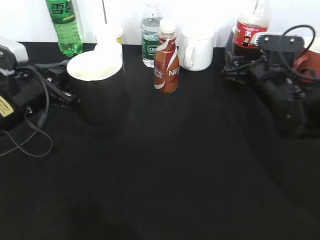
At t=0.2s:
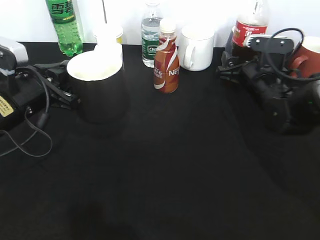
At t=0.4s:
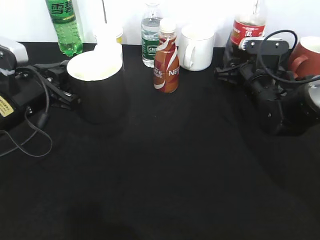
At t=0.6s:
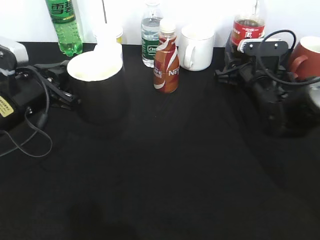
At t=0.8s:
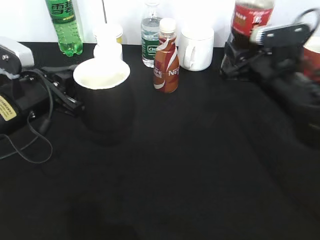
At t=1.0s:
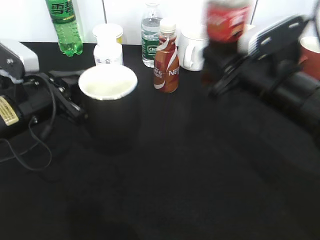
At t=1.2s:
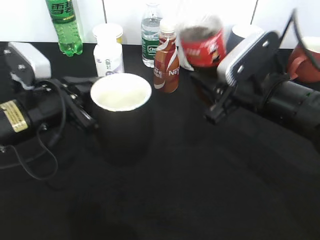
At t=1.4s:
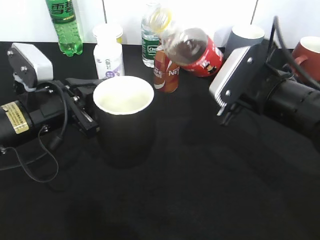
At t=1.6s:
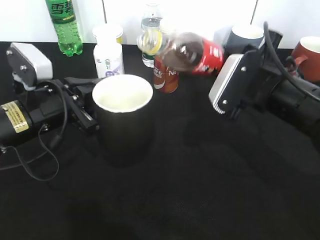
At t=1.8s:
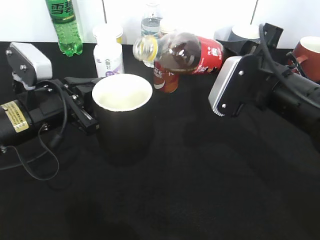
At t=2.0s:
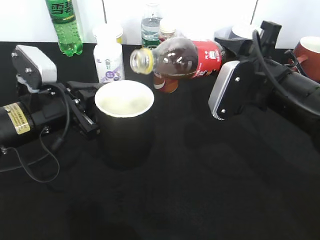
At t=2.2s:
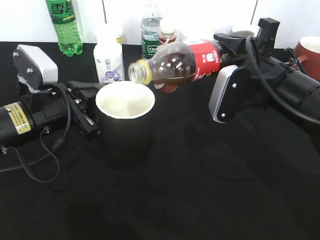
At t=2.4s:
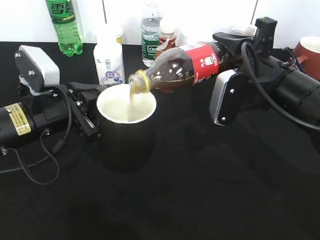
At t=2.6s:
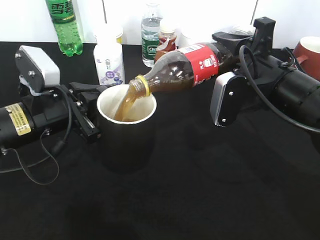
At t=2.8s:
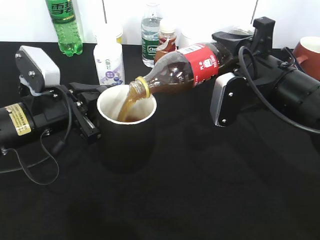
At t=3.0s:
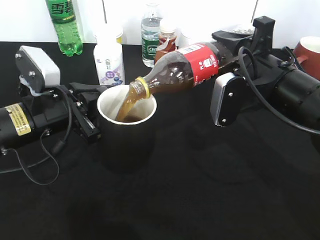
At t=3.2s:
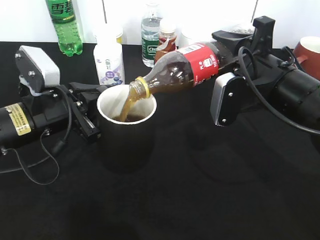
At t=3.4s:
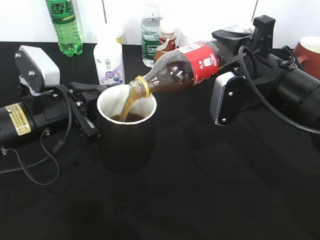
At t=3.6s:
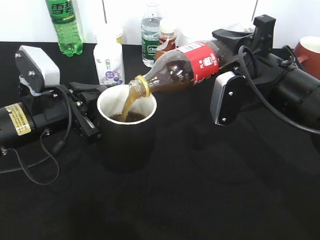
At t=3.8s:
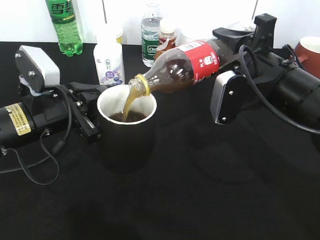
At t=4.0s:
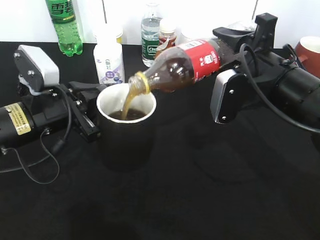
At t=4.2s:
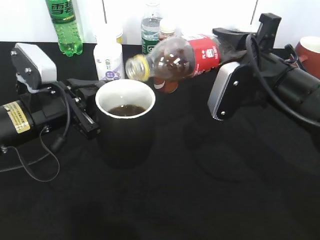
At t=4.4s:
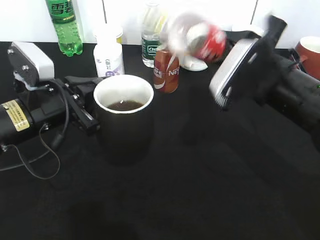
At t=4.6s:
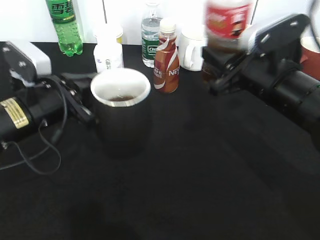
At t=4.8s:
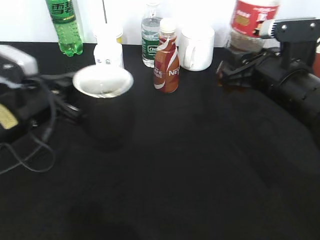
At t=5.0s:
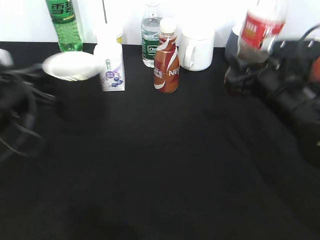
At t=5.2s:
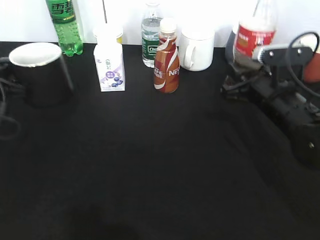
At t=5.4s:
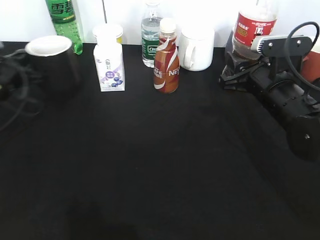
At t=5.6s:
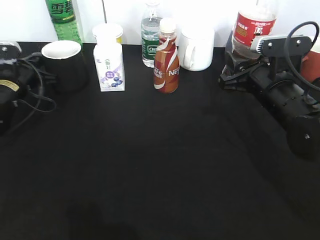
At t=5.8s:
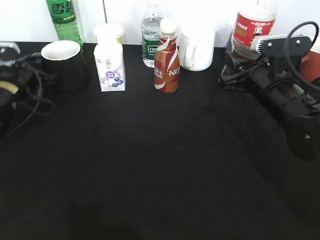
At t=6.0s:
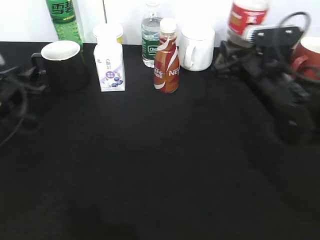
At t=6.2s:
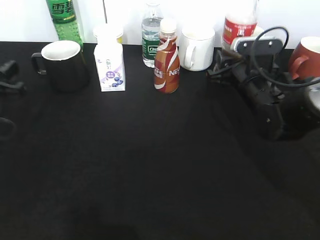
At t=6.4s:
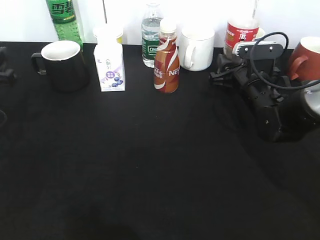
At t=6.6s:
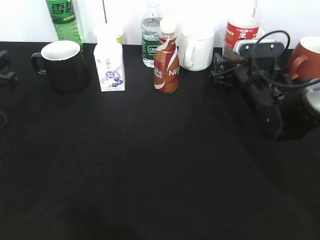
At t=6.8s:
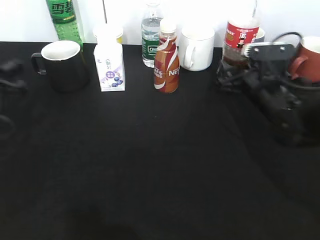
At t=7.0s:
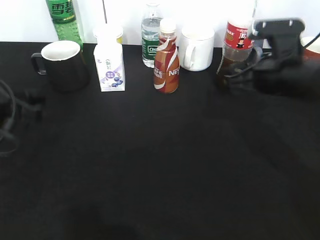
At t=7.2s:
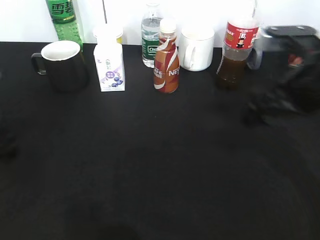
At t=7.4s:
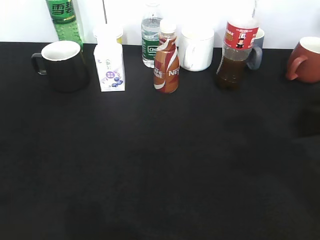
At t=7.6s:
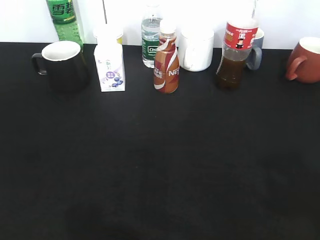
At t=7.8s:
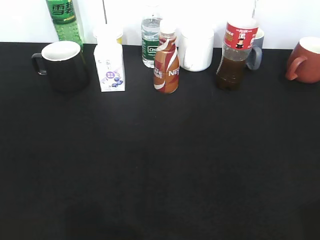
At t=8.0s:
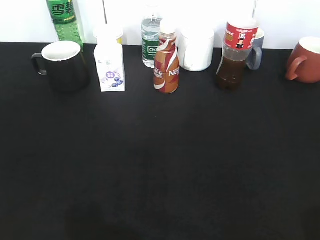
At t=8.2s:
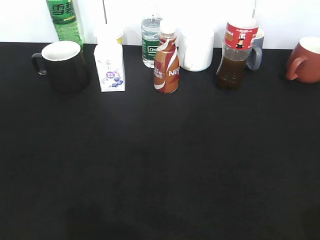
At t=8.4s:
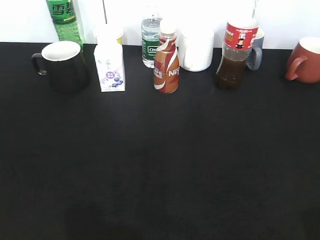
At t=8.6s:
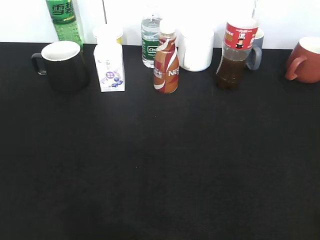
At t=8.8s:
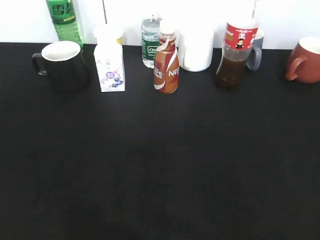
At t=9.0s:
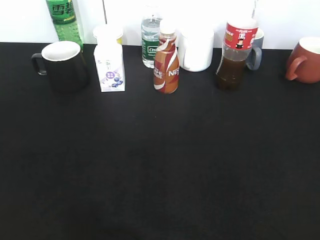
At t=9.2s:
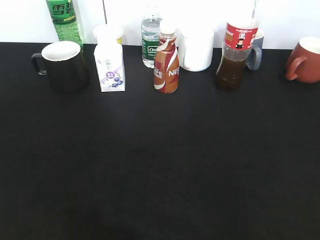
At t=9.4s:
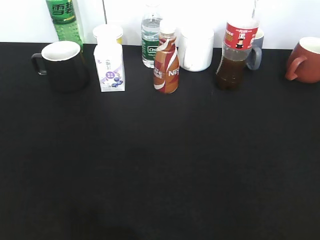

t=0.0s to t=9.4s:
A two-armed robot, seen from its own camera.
Step, t=0.8s to t=4.2s: Pour the cola from bottle to cup with right gripper.
Step, t=4.6s to t=6.0s: Place the black cup on the table with left gripper.
Step, t=6.2s to t=7.0s: Place the cola bottle on the table with right gripper.
t=0.0s to t=1.6s: The right gripper is displaced backward and upward by approximately 10 cm, and closes.
t=4.8s to t=6.2s: The right gripper travels forward and downward by about 10 cm; the left gripper shifts some 10 cm to the left, travels forward and back again, approximately 15 cm each way, and opens.
t=6.2s to t=7.8s: Both grippers move backward and upward, approximately 35 cm. The right gripper opens its fingers, while the left gripper opens its fingers.
